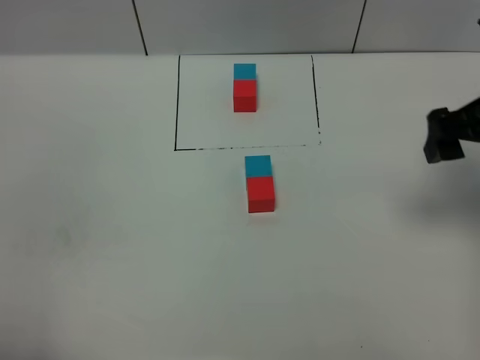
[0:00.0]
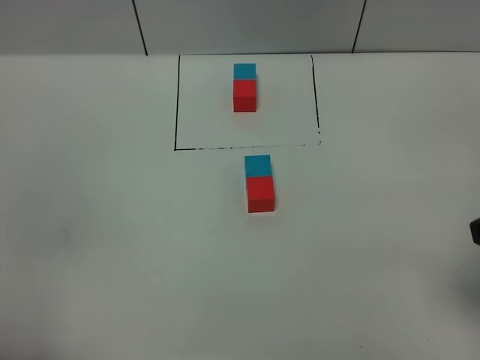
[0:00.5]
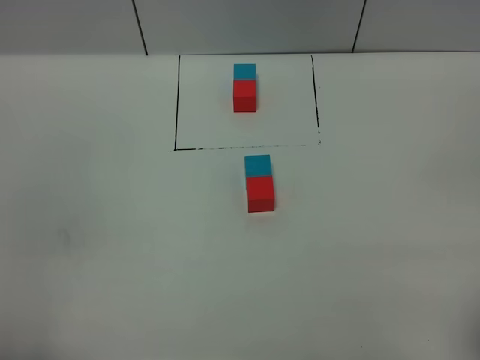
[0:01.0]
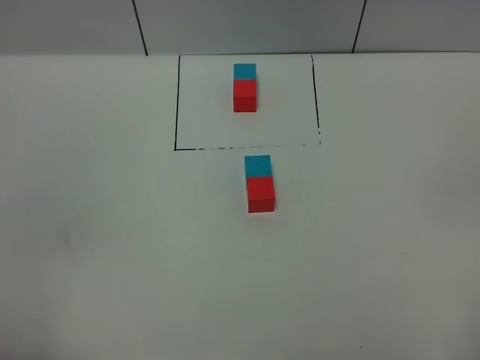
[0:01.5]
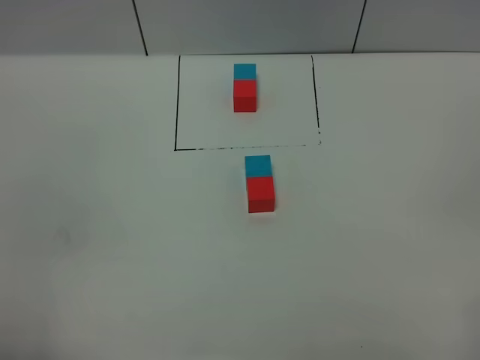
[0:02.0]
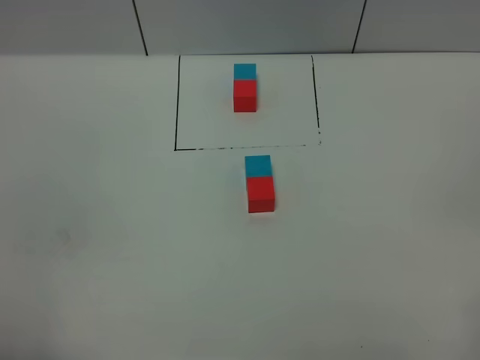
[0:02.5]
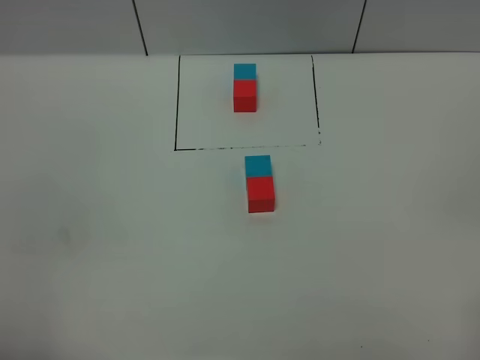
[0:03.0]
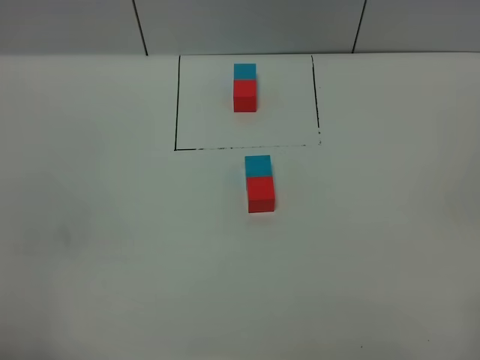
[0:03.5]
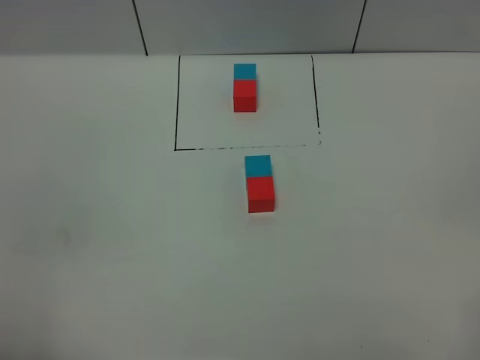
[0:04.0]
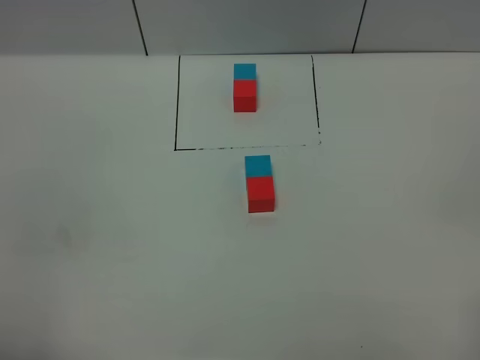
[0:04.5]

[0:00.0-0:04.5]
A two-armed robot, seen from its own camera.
Task of the whole recording: According to the building block template in front, assemble the scattered blocks together.
0:00.0 to 0:02.0: The right gripper moves backward, roughly 30 cm.
0:02.0 to 0:04.5: Both grippers stay put.
